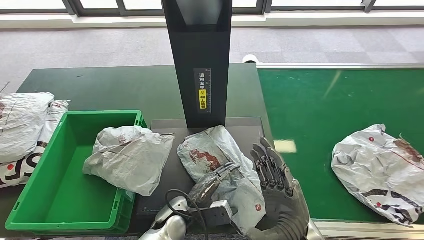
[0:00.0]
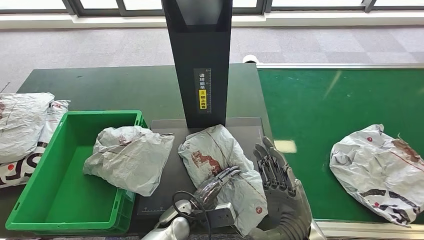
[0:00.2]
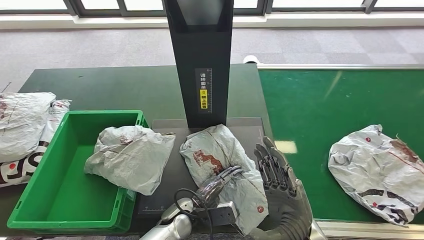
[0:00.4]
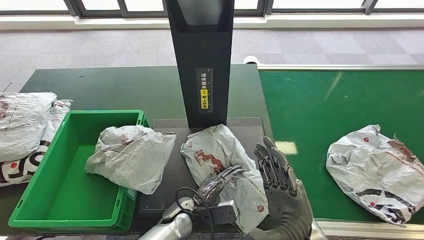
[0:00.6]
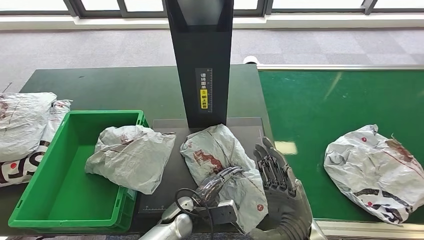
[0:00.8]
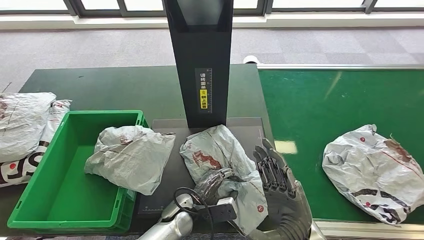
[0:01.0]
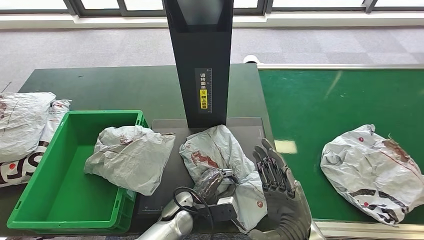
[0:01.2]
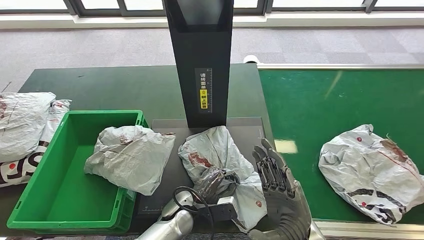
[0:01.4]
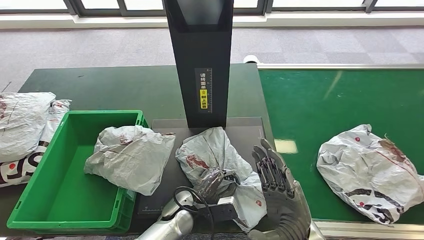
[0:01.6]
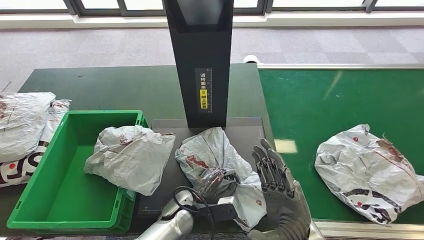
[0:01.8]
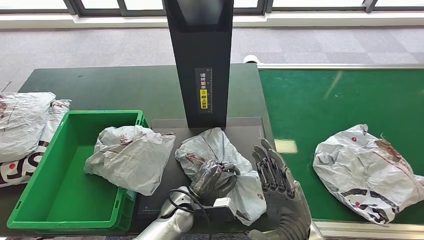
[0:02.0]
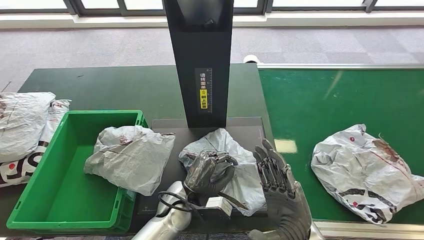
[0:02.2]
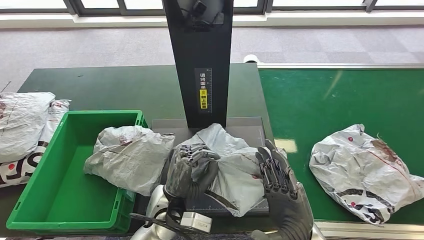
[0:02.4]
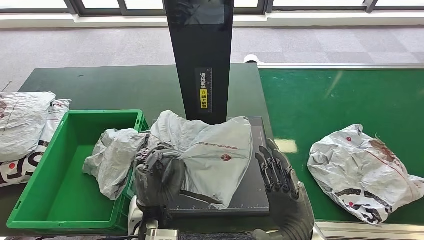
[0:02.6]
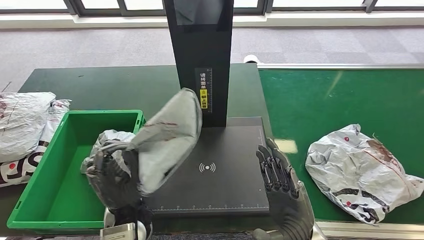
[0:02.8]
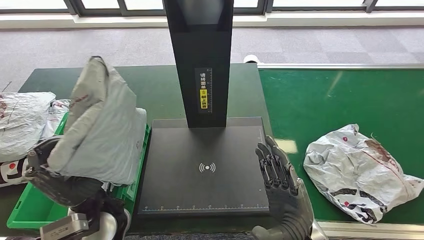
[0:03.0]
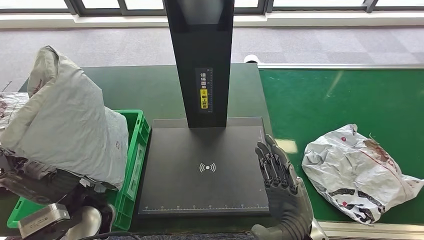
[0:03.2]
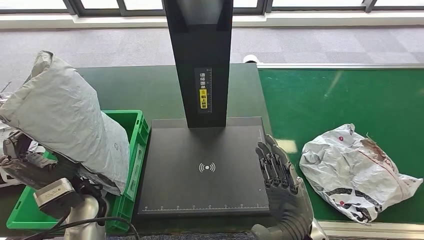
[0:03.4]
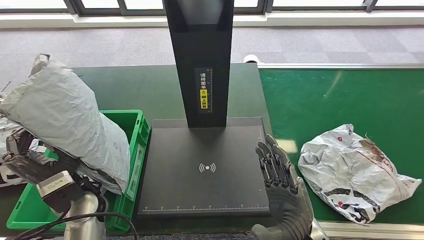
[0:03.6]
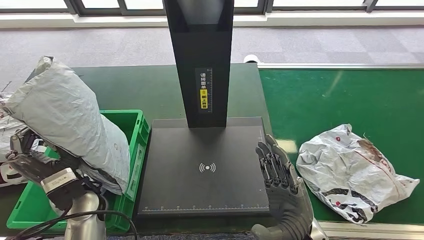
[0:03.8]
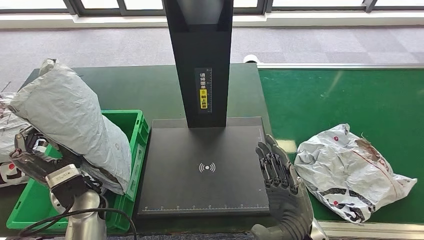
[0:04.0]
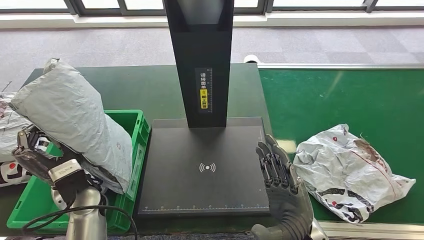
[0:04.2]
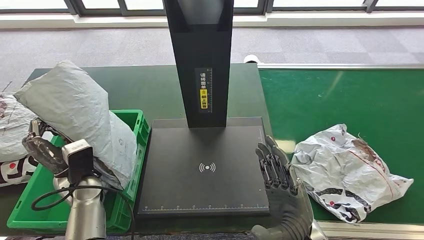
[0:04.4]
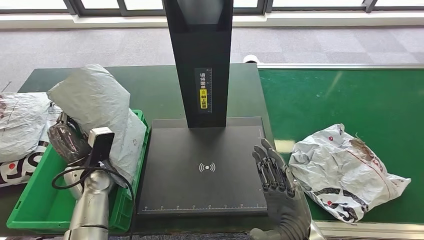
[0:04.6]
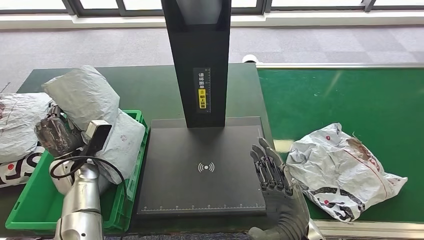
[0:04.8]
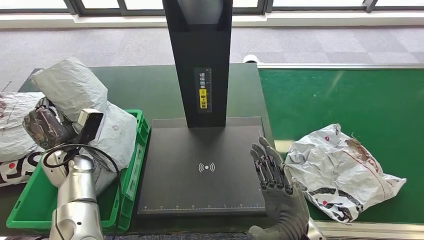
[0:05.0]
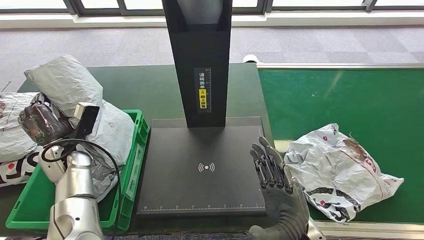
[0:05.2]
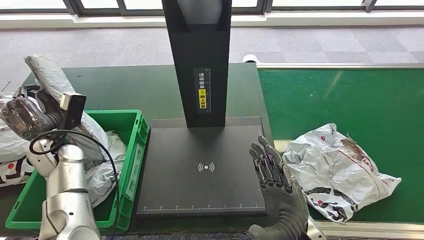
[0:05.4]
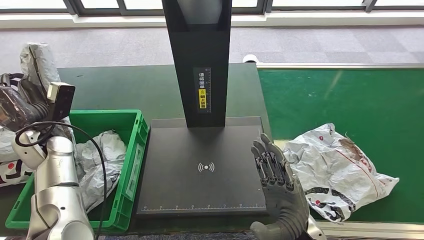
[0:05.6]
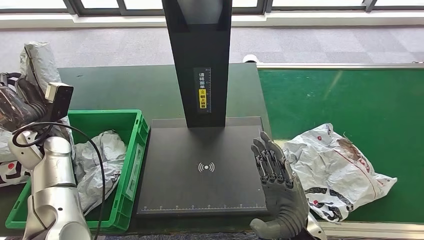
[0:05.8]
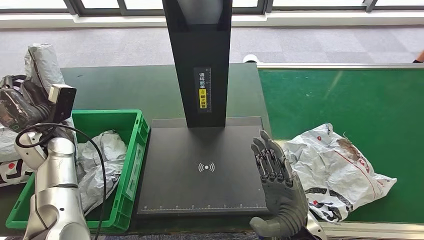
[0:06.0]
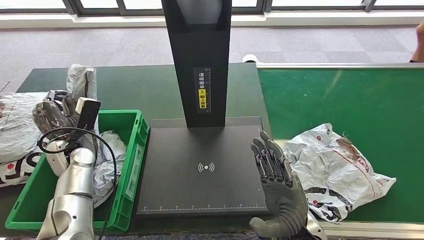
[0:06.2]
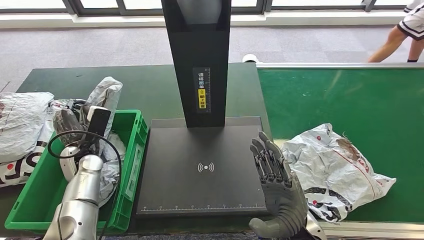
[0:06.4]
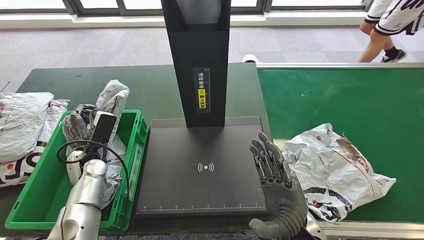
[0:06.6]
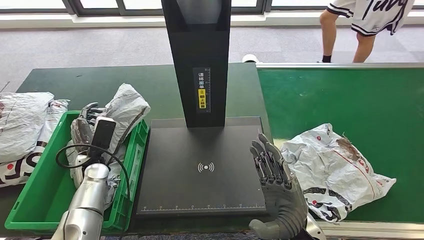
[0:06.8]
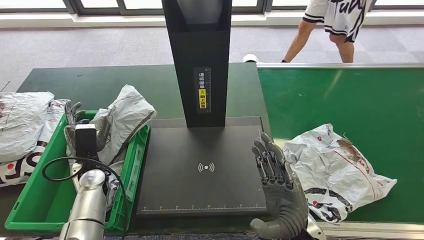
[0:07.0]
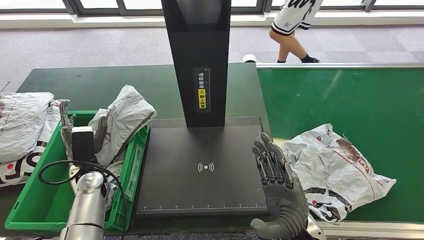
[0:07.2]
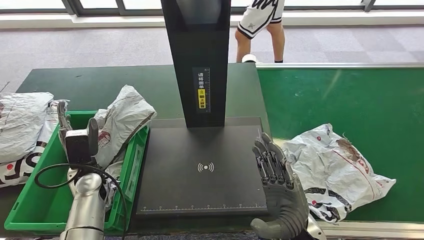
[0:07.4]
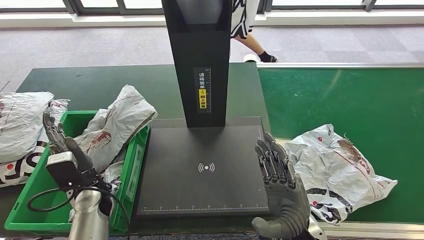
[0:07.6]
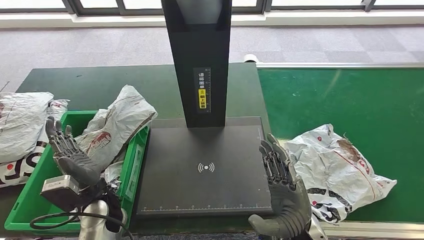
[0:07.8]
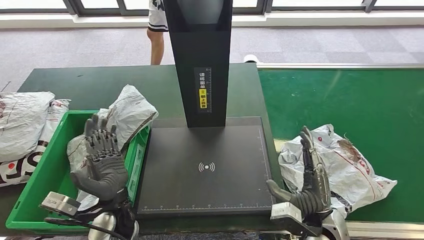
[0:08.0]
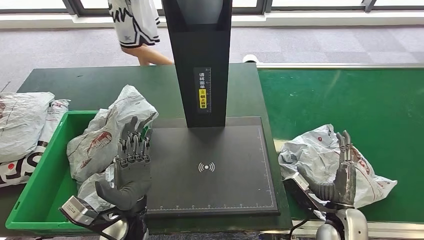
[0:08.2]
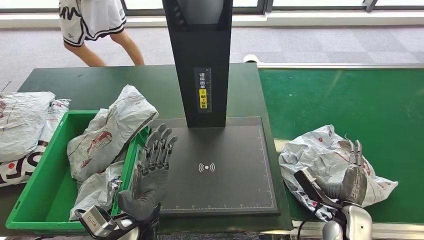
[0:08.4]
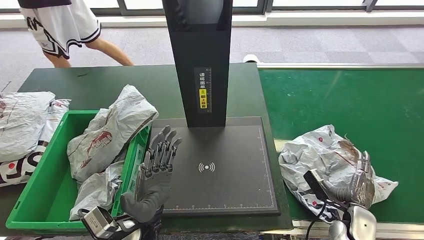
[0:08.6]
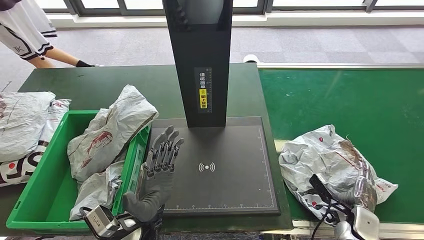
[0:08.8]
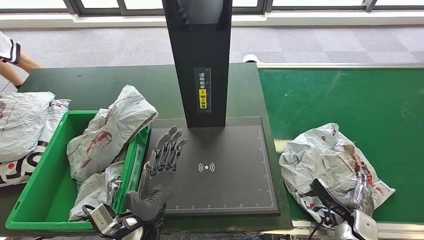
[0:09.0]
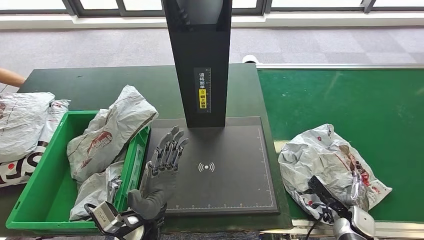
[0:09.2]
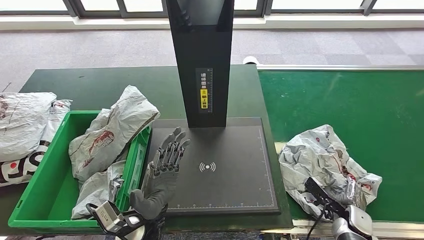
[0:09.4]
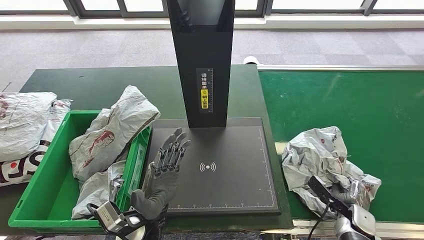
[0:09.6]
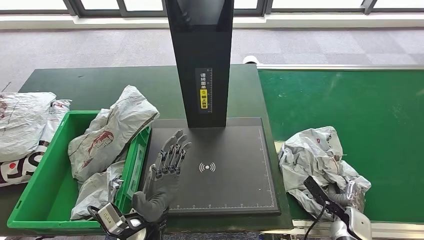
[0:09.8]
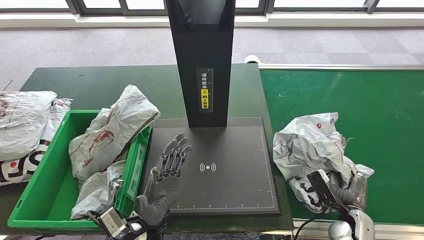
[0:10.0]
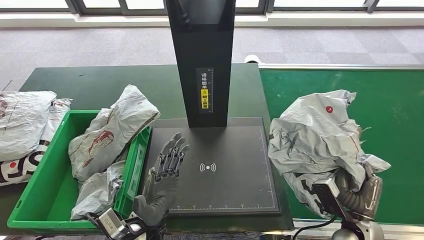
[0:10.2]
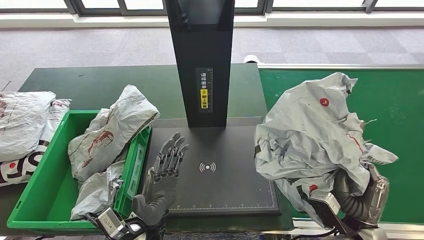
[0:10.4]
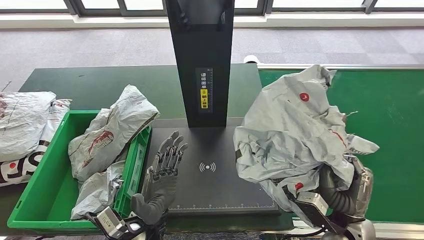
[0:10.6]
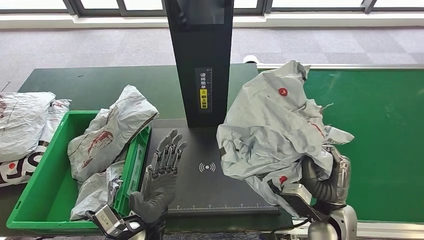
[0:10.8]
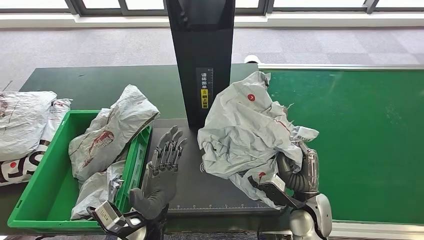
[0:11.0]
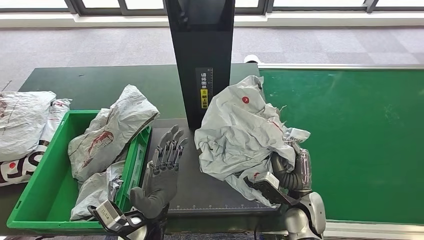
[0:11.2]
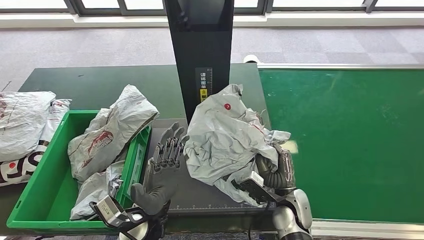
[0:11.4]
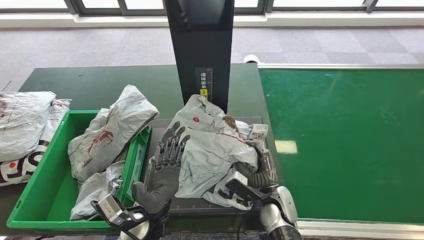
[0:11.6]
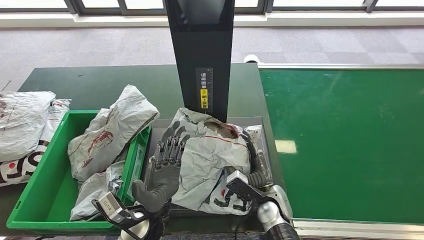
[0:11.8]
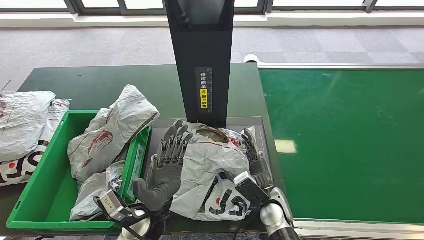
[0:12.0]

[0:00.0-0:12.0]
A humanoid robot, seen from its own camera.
Step, 0:00.0 to 0:02.4: Pick up the parcel from the inbound machine.
Step, 0:03.4 to 0:07.4: Place the parcel into the delivery box.
Step, 0:08.0 to 0:10.8: Pick up the parcel from the conveyor belt.
0:00.0 to 0:01.6: The hands move only a little.
0:03.0 to 0:04.4: The left hand is displaced to the left, forward and downward by approximately 15 cm.
0:07.6 to 0:09.0: The right hand is displaced to the right and downward by about 25 cm; the left hand travels to the right by roughly 15 cm.

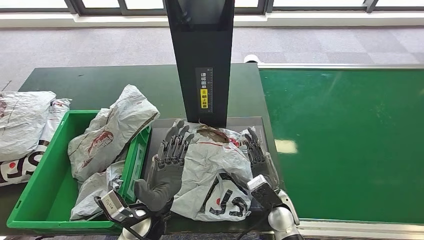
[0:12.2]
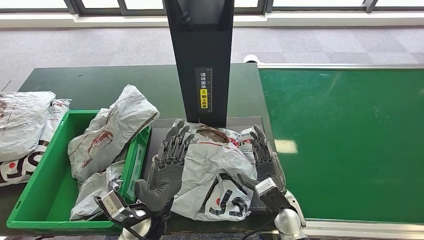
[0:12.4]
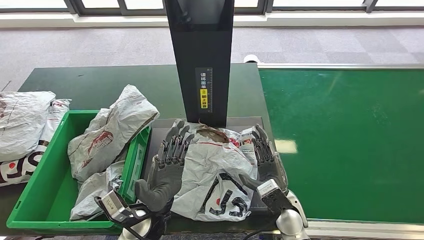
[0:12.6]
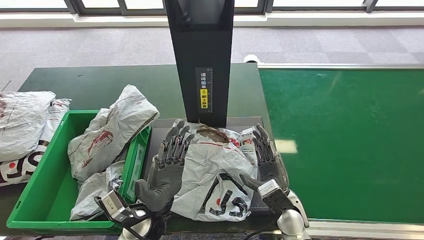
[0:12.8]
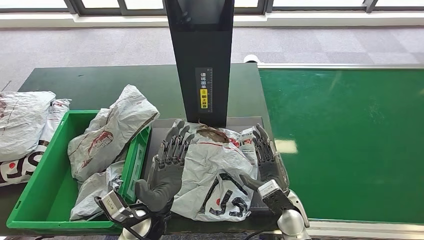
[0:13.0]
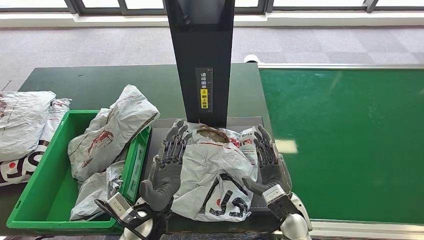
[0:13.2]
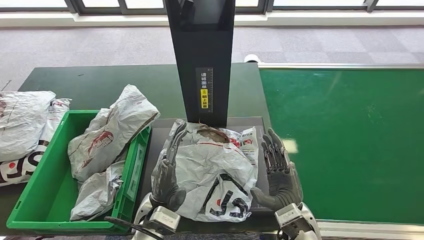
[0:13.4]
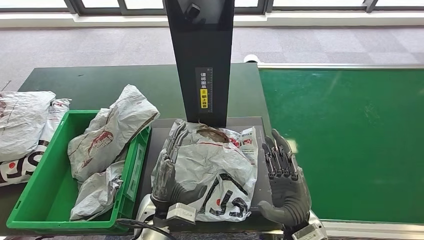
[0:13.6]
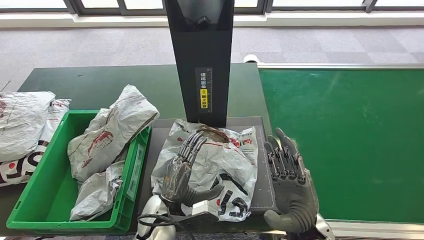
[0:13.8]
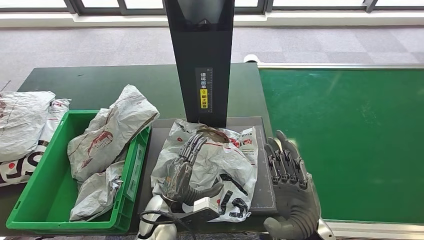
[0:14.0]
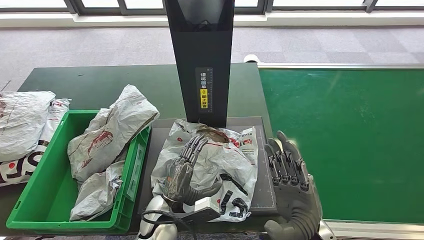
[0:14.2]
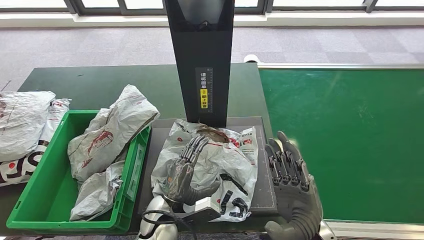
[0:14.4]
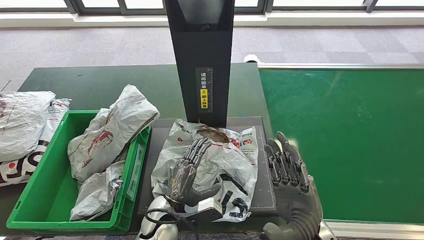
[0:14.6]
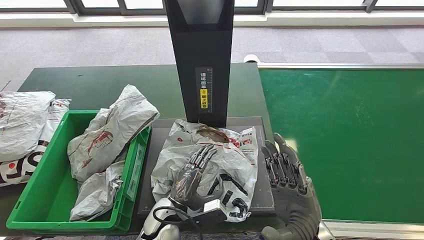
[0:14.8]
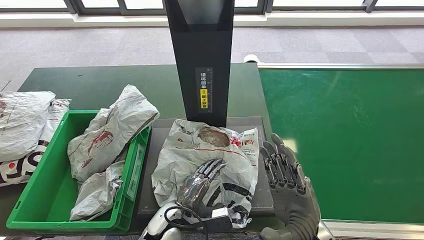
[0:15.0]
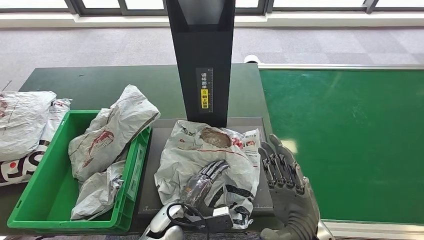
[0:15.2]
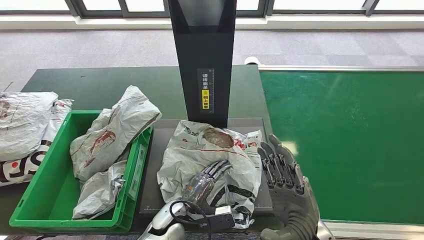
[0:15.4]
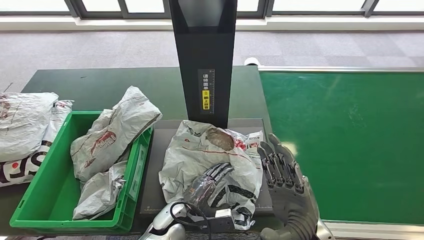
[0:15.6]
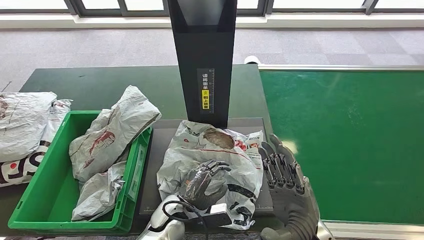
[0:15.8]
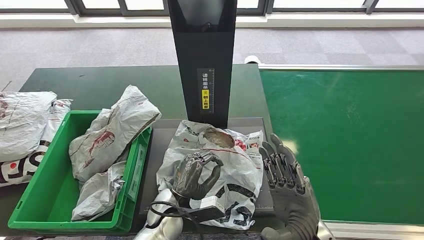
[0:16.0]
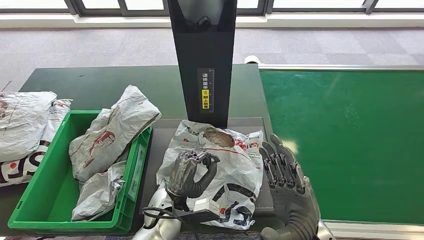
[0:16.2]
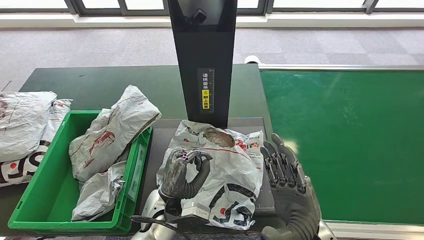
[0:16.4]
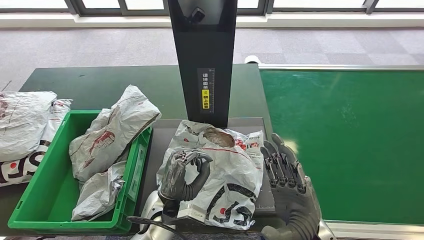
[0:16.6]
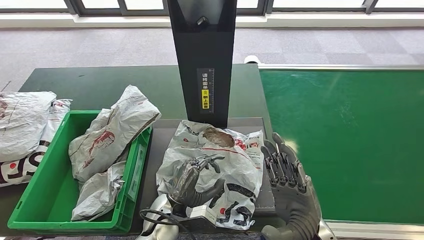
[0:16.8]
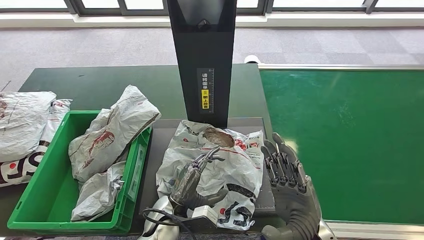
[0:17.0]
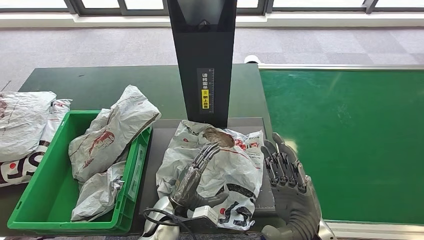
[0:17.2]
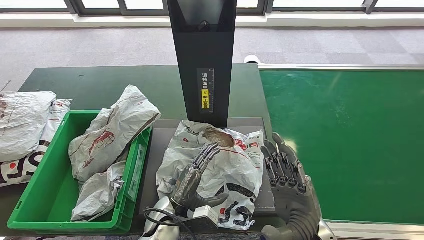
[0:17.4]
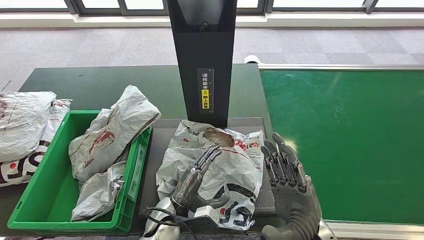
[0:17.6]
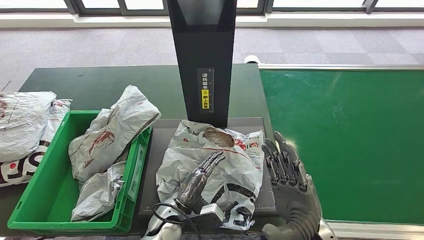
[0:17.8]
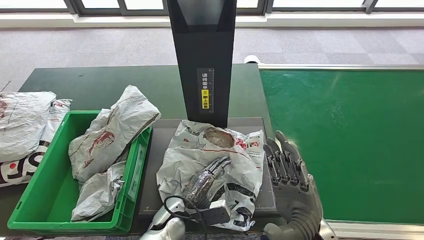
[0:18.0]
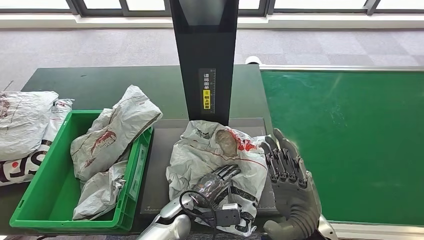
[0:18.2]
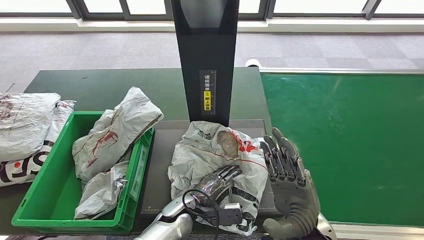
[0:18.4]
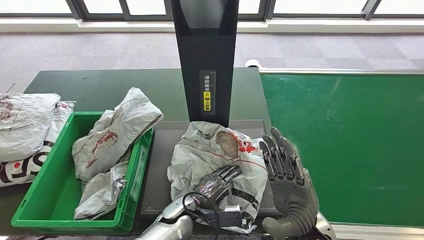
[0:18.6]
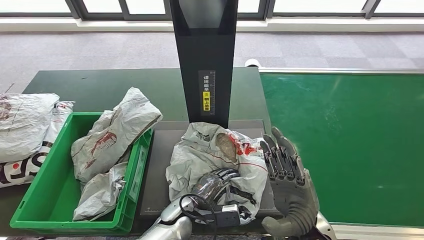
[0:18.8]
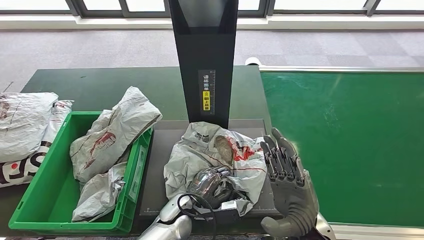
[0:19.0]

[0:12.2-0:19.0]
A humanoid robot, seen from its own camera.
0:12.2 to 0:13.6: The right hand heads upward and backward, covering roughly 10 cm.
0:13.6 to 0:15.0: The left hand shifts approximately 5 cm downward.
0:15.0 to 0:16.2: The left hand moves about 5 cm.
0:16.2 to 0:17.6: There are only small adjustments of the hands.
